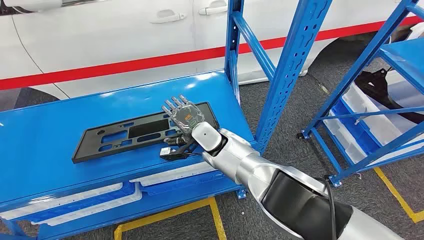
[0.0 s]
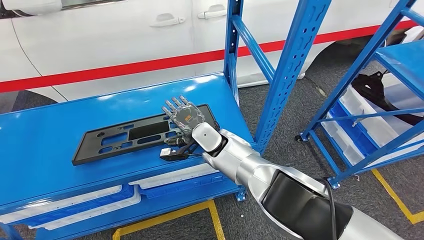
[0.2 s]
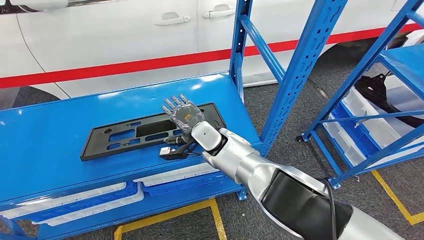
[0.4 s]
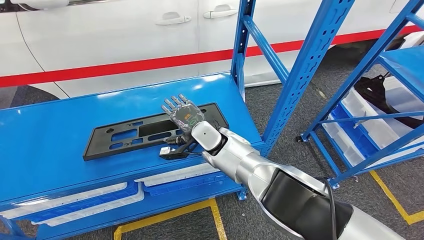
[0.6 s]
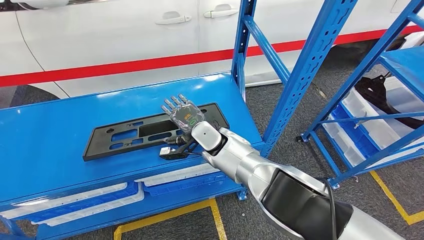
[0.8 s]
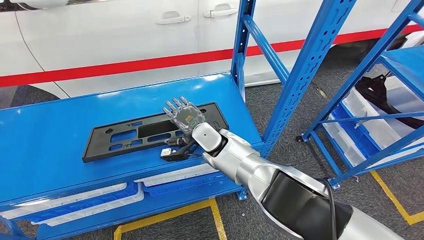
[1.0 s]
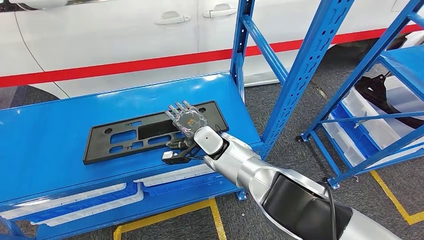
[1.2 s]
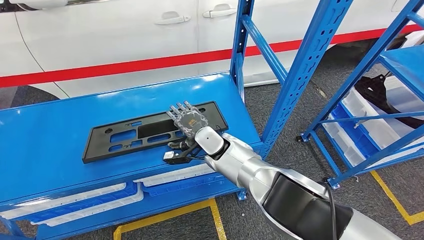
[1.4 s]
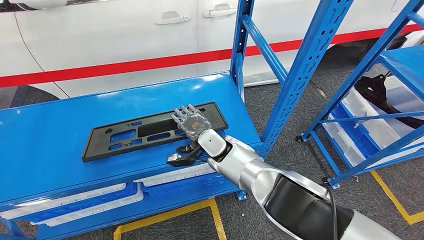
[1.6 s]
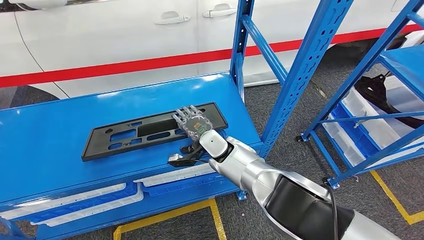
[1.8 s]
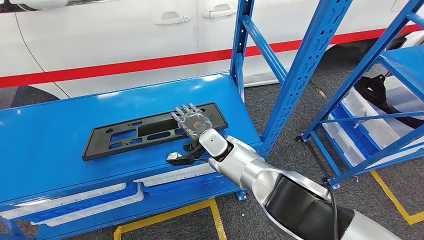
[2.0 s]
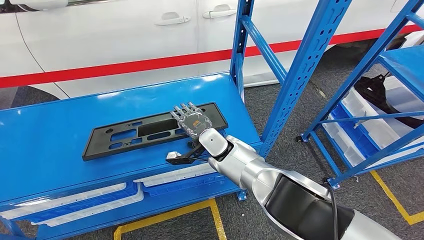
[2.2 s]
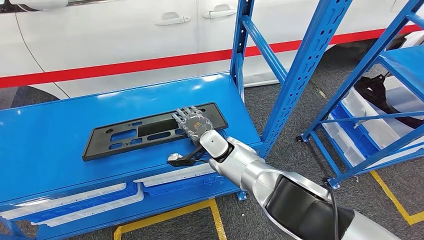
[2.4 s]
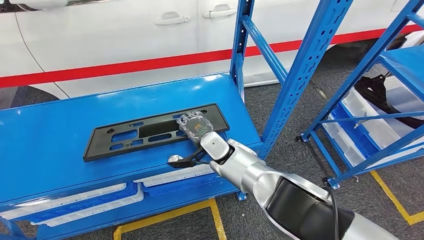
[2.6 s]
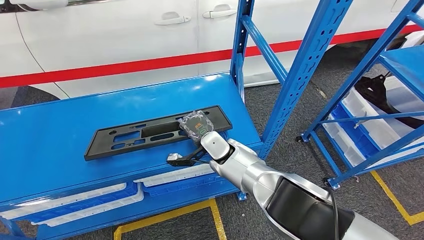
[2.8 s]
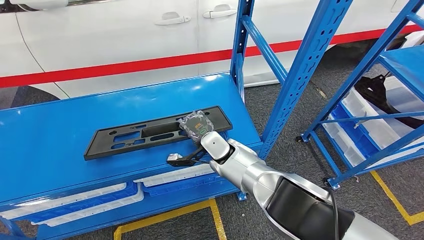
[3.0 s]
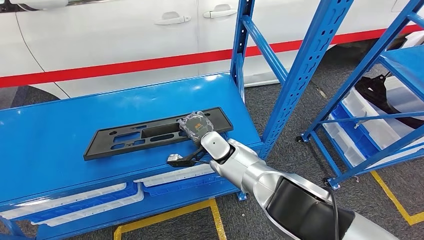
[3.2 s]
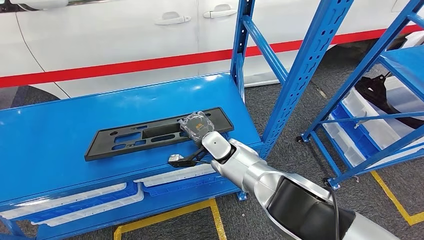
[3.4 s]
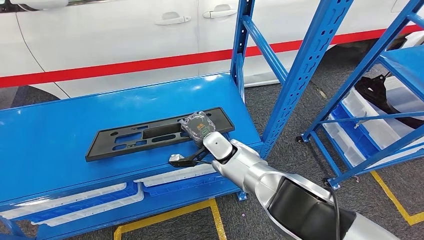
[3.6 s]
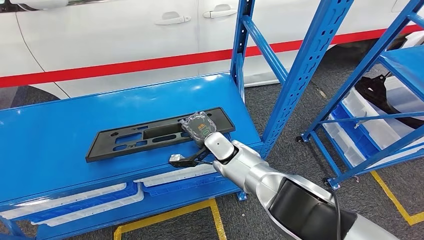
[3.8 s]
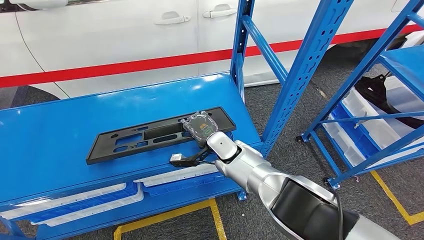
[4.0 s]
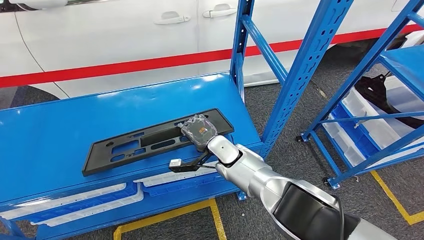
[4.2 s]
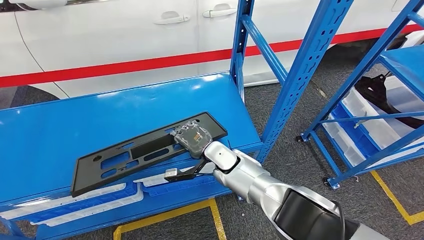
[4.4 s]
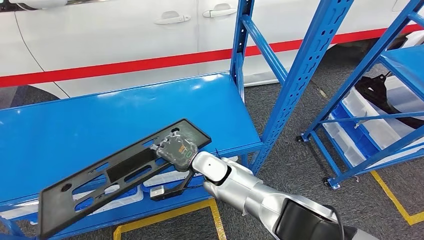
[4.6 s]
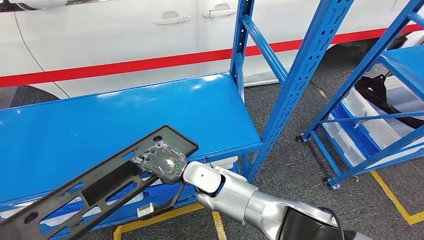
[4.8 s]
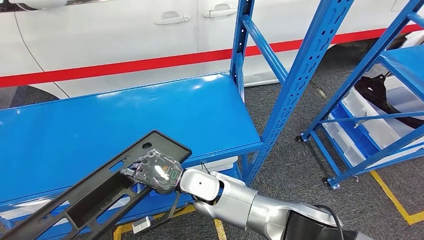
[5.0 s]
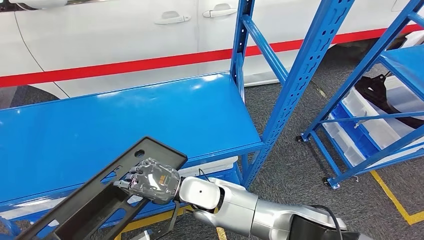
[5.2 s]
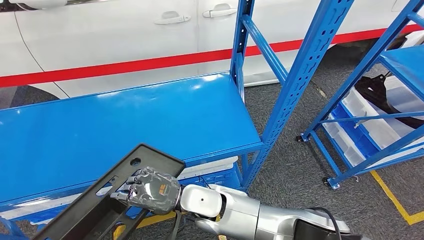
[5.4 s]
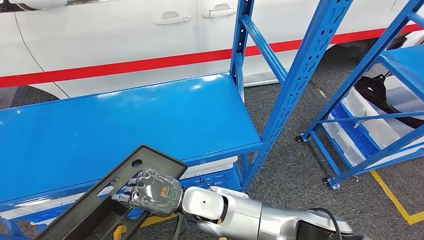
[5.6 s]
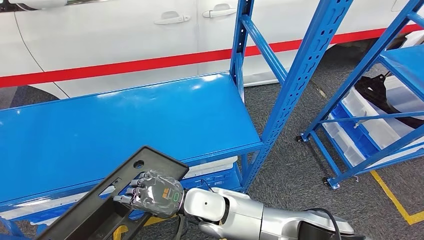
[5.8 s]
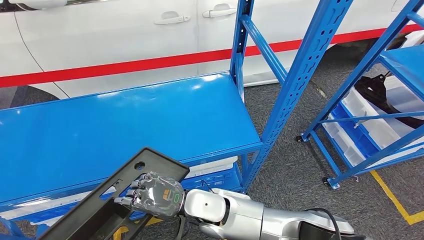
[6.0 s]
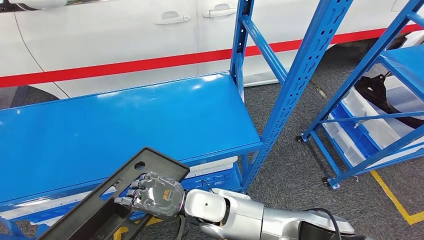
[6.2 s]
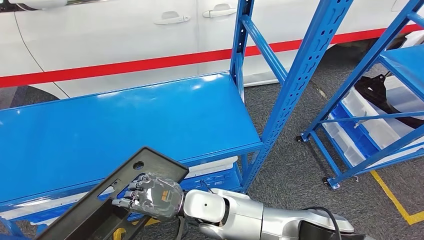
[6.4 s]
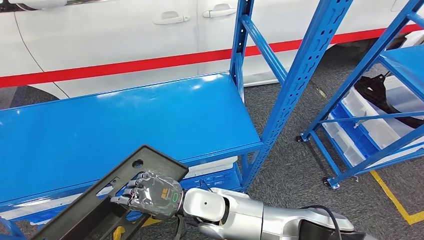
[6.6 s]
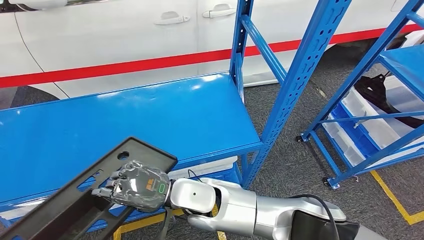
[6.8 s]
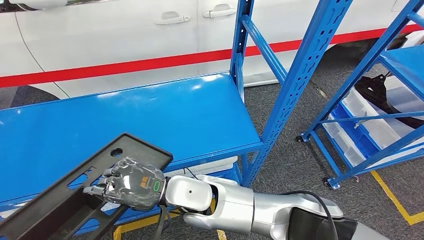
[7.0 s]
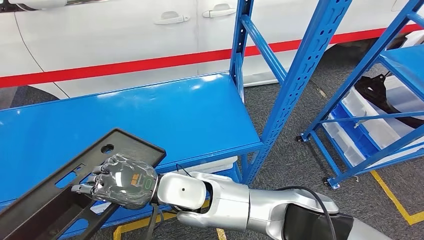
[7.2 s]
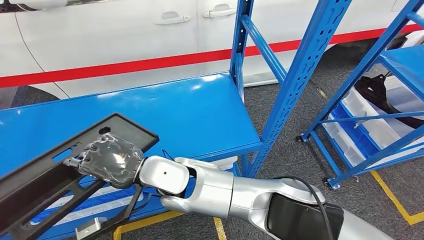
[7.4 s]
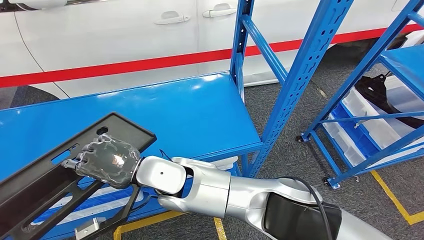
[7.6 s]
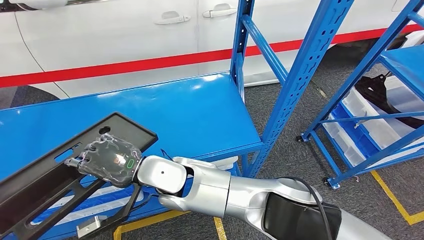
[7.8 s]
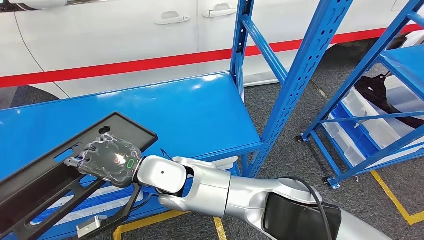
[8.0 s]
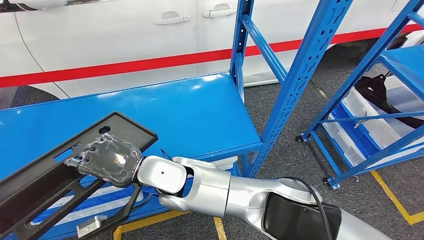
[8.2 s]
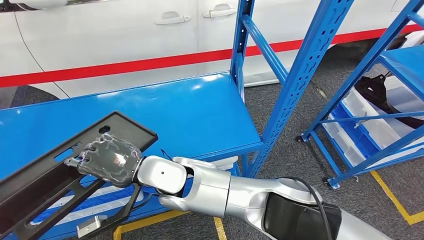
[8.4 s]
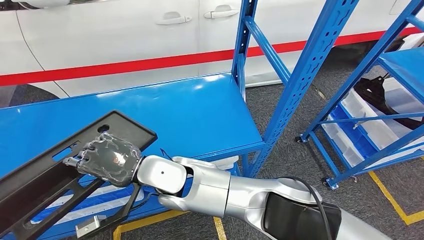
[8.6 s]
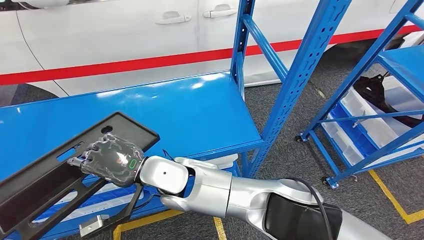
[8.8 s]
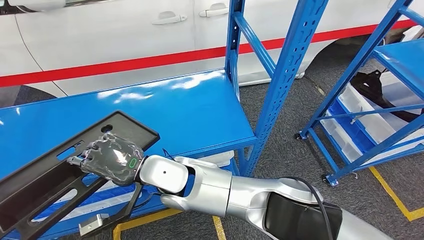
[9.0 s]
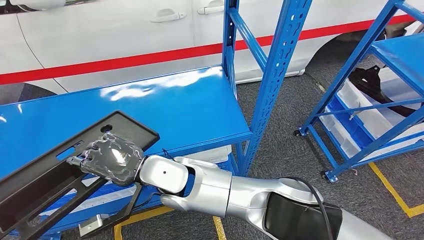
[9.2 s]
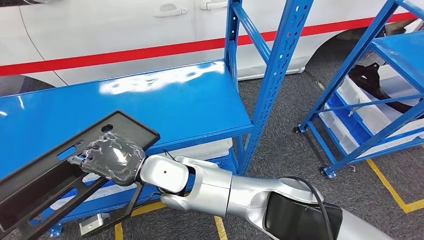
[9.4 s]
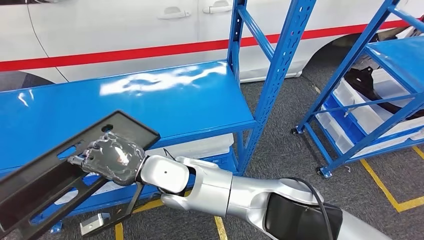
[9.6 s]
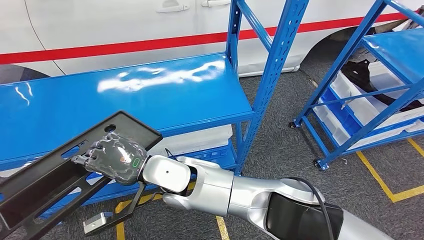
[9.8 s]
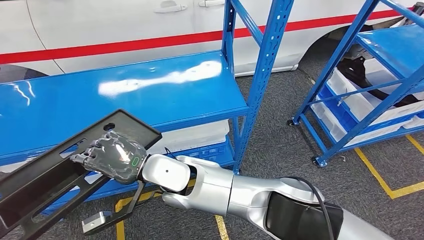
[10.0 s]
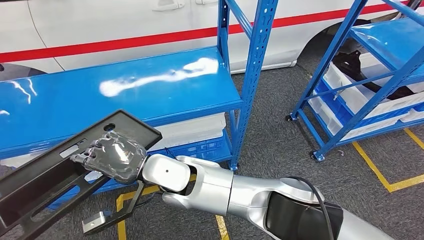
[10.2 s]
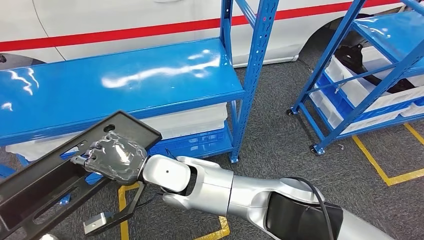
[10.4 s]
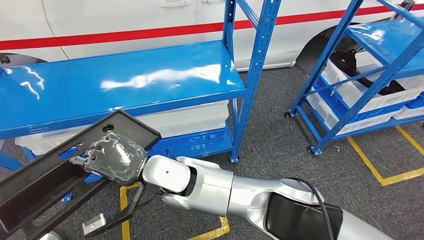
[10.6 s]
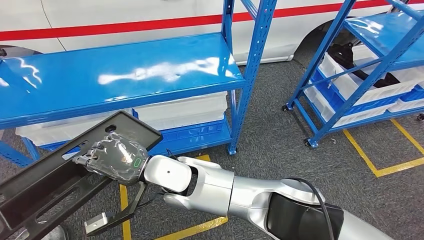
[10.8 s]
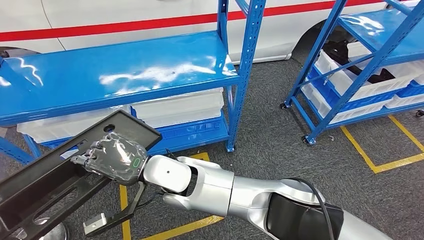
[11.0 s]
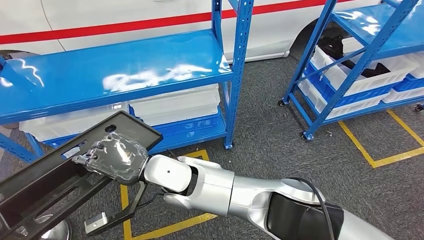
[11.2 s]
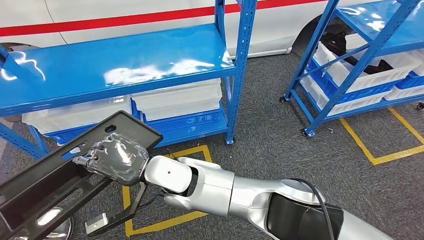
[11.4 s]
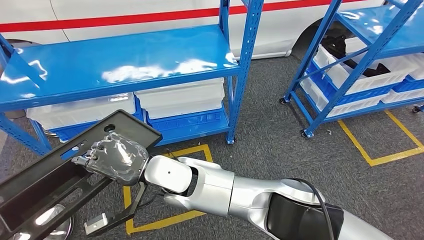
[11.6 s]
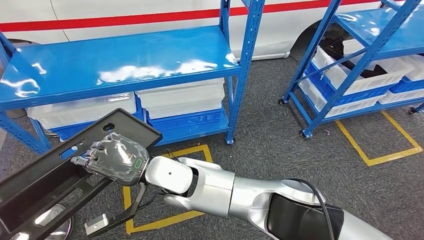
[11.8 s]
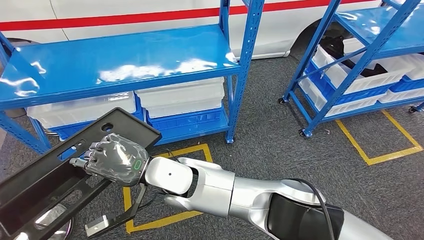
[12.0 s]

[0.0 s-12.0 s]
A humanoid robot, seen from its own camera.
Step, 0.0 to 9.4 s: Pick up the large material from the shelf.
1.6 to 3.0 s: Both hands stay about where they are.
4.4 to 6.0 s: The right hand moves backward and to the left, about 10 cm.
6.0 to 7.6 s: The right hand is displaced upward and to the left by about 15 cm.

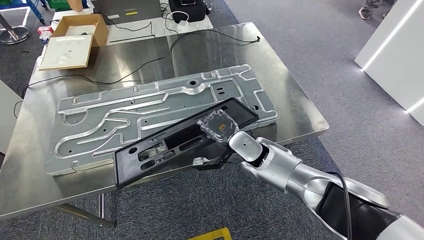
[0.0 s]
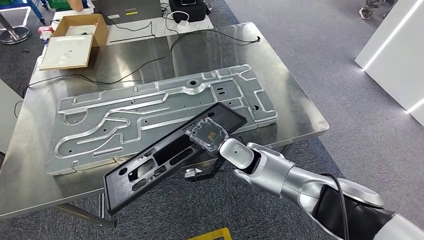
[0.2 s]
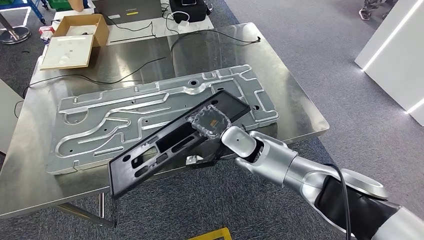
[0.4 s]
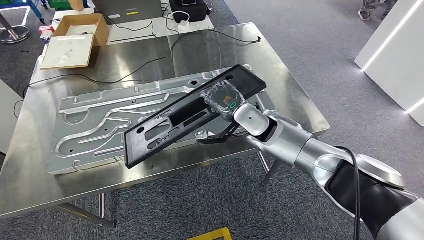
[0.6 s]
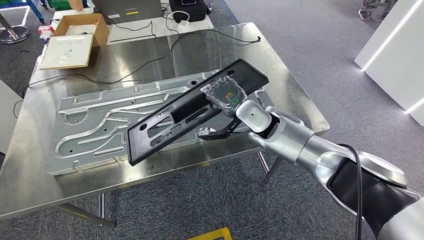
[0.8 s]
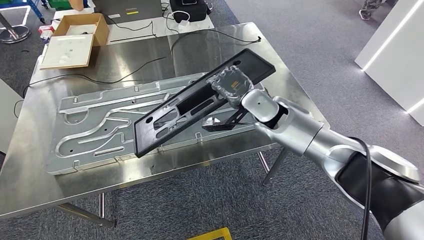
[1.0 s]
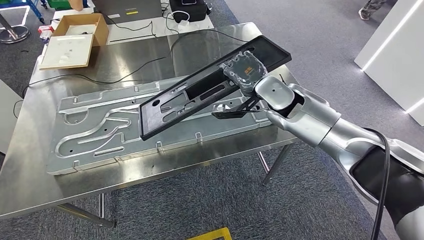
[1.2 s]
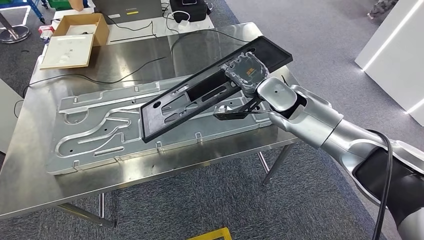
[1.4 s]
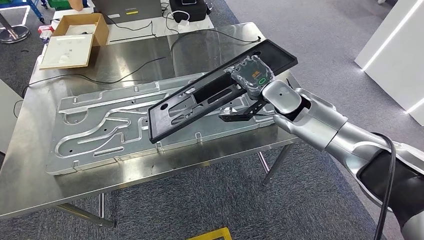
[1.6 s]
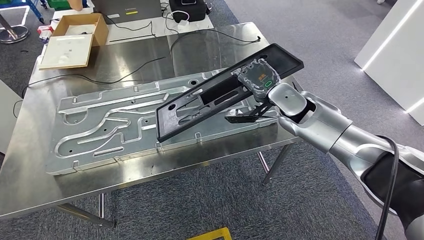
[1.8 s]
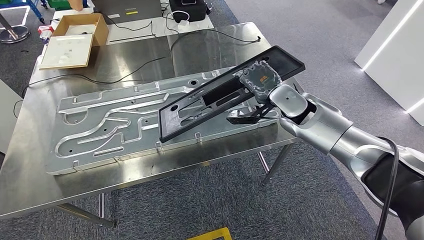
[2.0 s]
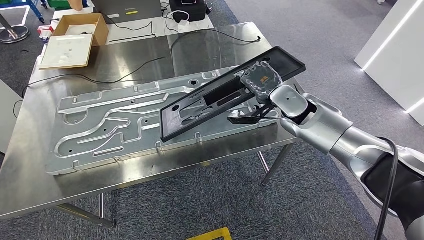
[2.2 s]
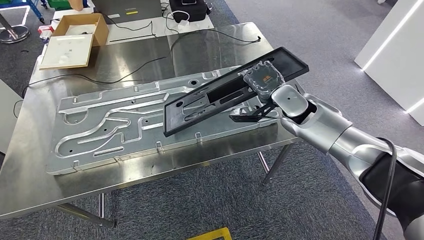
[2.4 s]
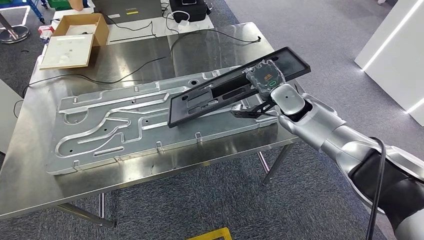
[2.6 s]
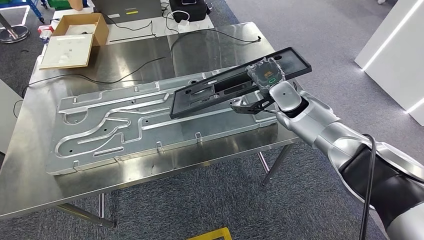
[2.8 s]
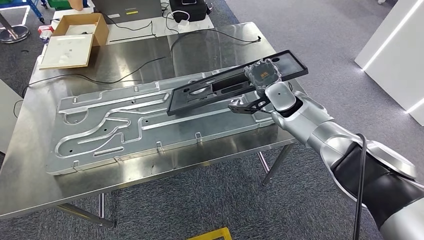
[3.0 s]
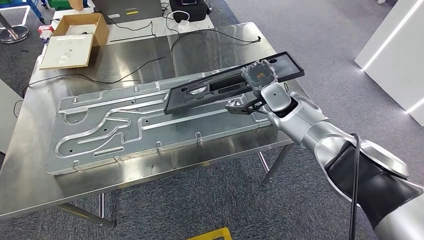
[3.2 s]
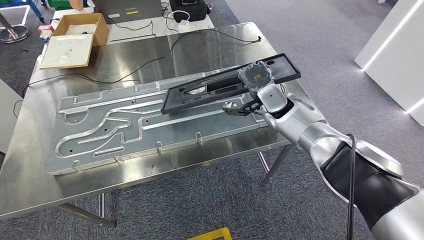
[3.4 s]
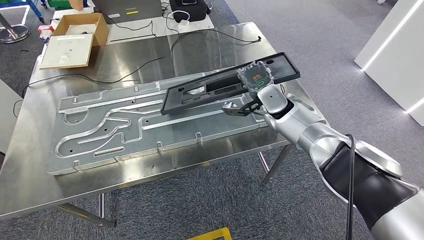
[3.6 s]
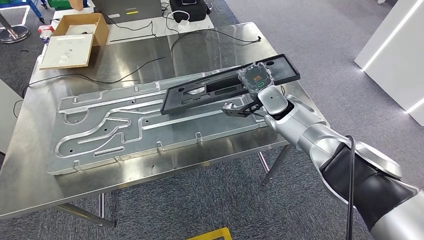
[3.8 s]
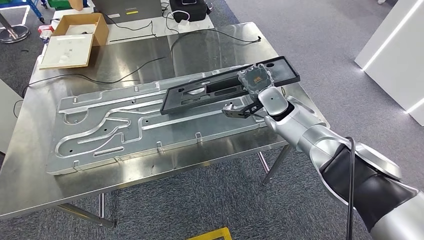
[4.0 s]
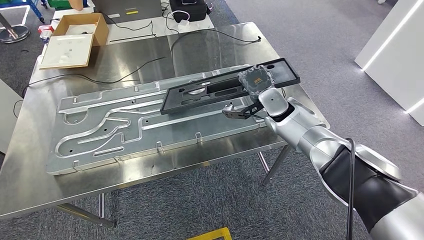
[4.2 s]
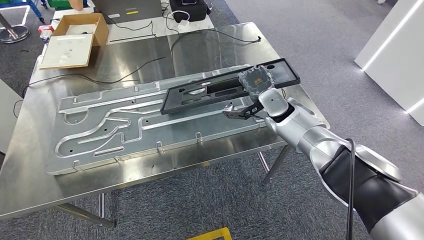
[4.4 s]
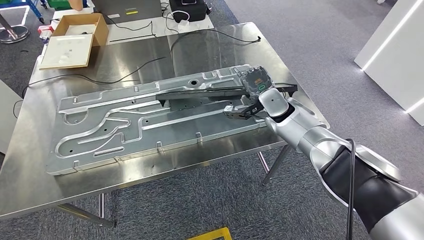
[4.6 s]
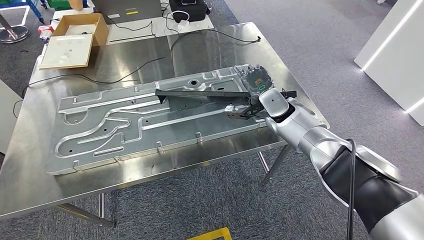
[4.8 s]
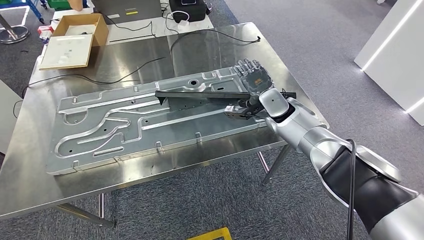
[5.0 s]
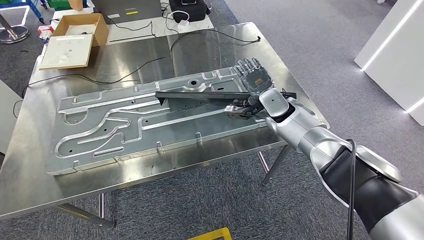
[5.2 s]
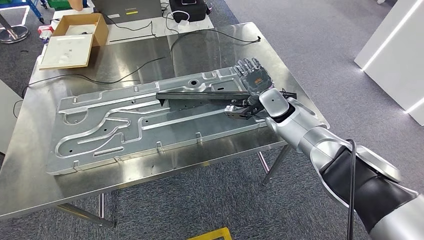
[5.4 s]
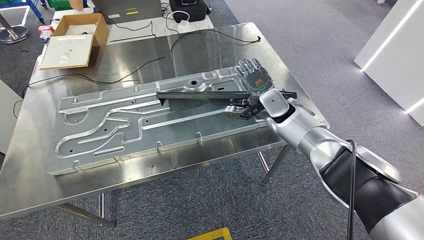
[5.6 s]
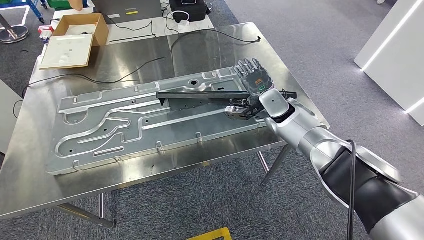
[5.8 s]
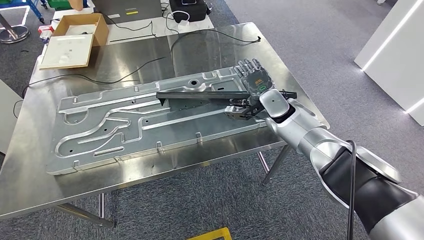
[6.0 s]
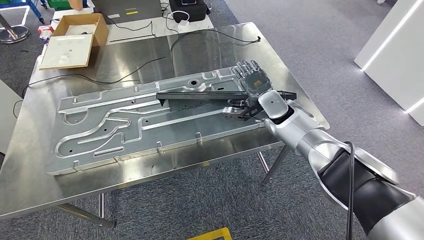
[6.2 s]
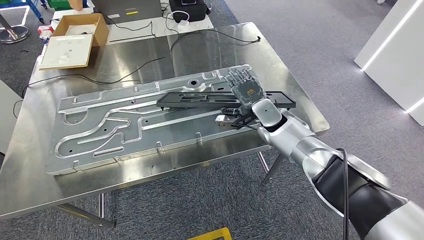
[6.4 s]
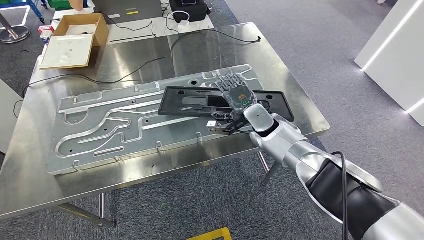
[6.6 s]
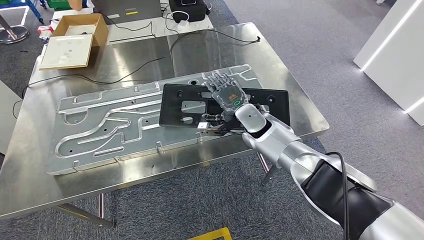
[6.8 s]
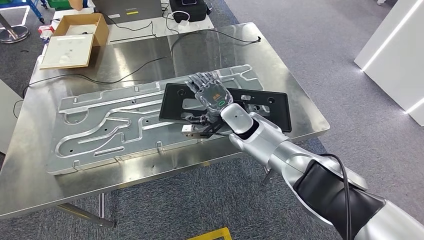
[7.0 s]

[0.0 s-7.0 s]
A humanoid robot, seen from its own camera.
1.4 to 2.8 s: The right hand travels downward by approximately 5 cm.
2.8 to 4.2 s: There are only small adjustments of the hands.
4.2 to 5.6 s: The two hands keep their place.
5.6 to 7.0 s: The right hand goes approximately 10 cm to the left.
